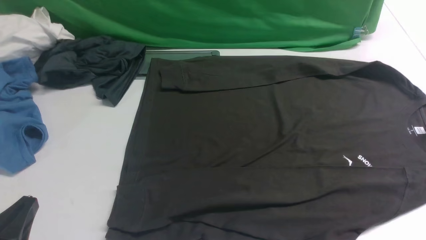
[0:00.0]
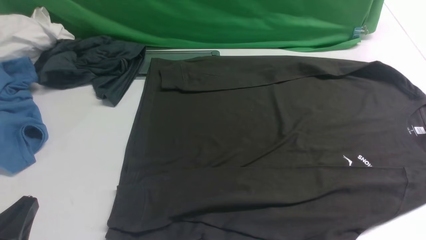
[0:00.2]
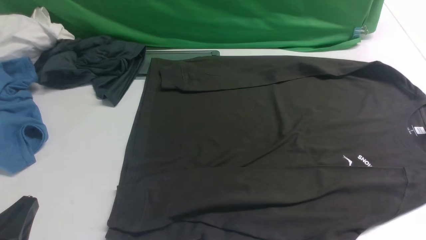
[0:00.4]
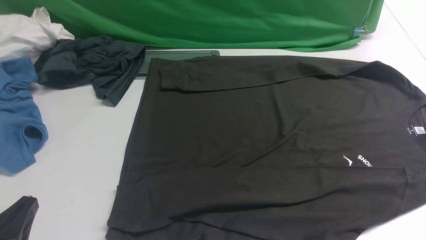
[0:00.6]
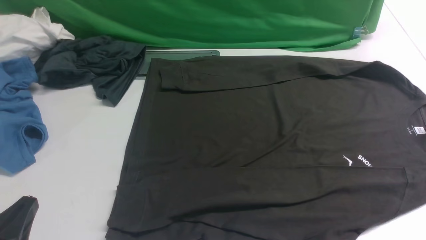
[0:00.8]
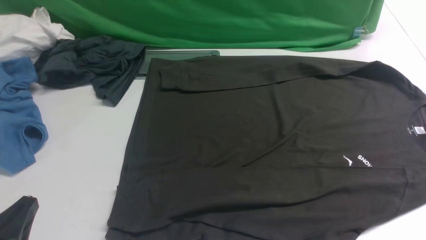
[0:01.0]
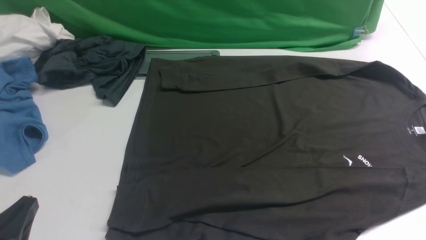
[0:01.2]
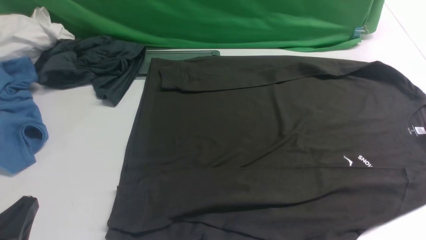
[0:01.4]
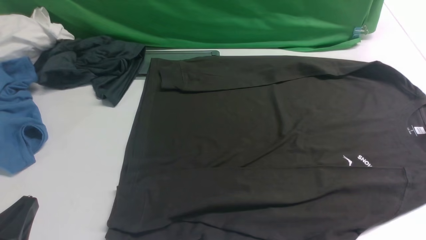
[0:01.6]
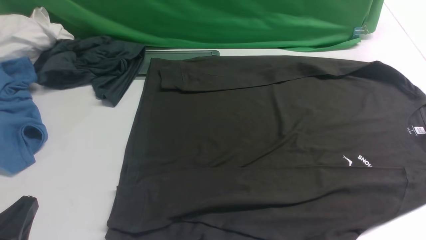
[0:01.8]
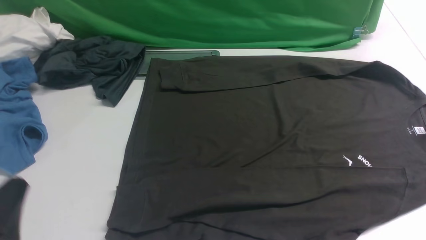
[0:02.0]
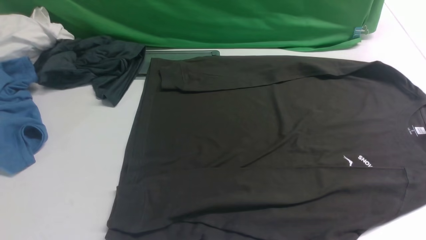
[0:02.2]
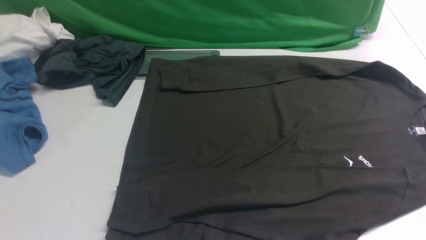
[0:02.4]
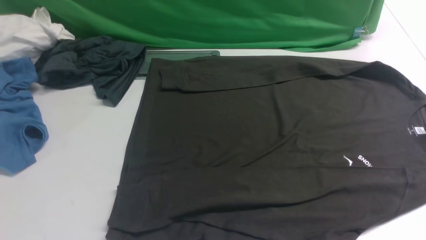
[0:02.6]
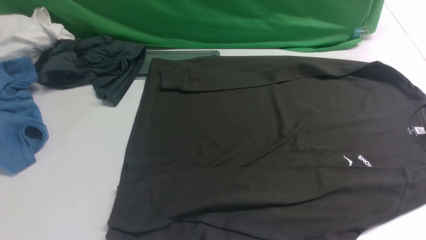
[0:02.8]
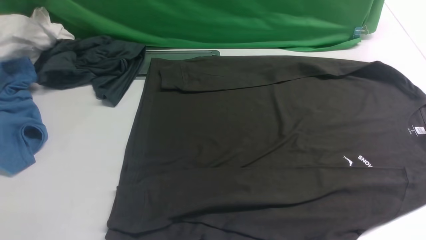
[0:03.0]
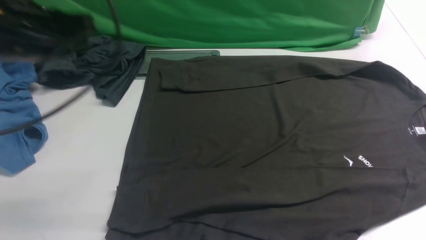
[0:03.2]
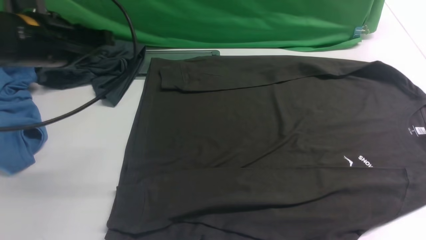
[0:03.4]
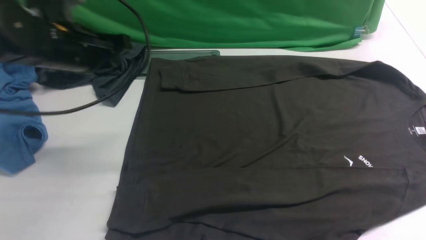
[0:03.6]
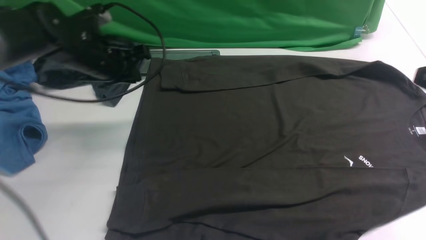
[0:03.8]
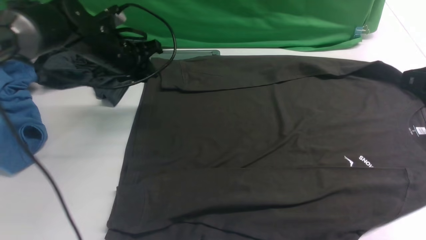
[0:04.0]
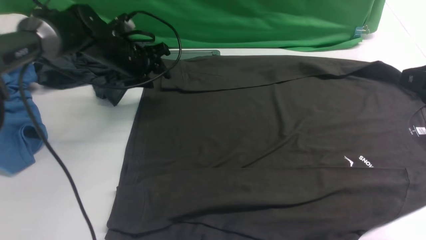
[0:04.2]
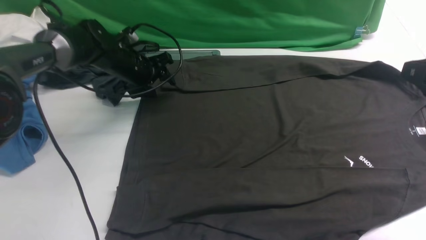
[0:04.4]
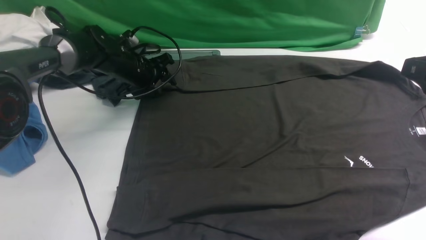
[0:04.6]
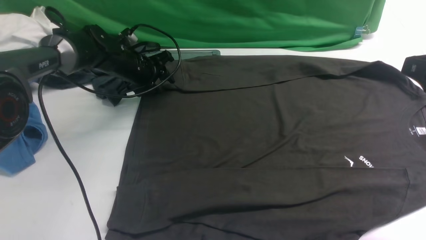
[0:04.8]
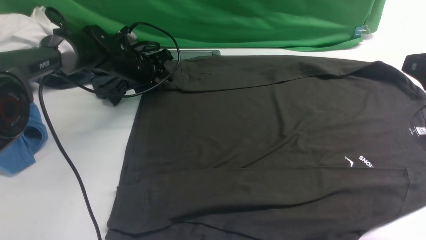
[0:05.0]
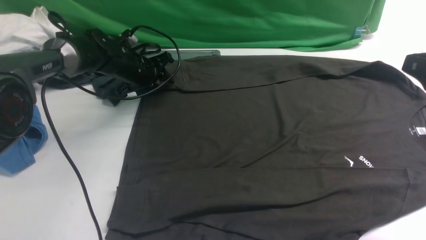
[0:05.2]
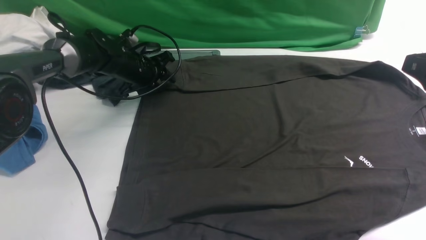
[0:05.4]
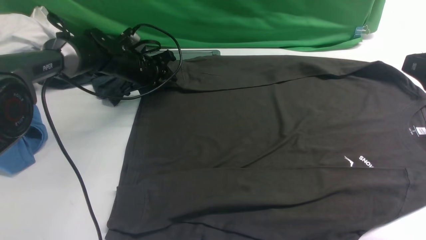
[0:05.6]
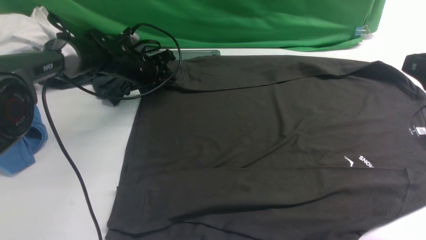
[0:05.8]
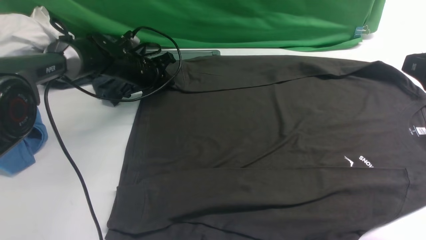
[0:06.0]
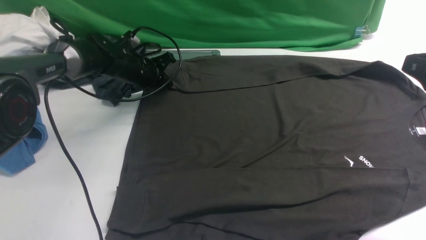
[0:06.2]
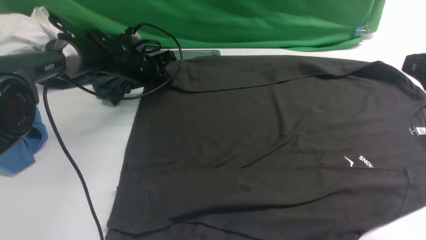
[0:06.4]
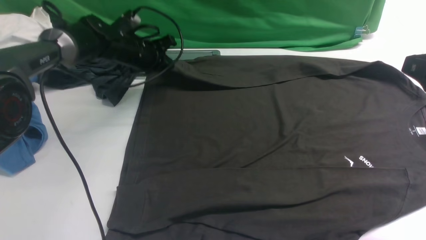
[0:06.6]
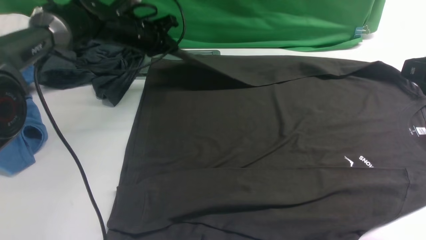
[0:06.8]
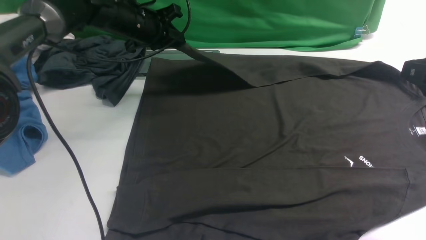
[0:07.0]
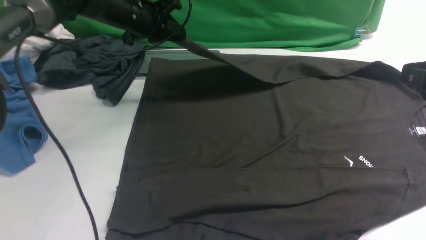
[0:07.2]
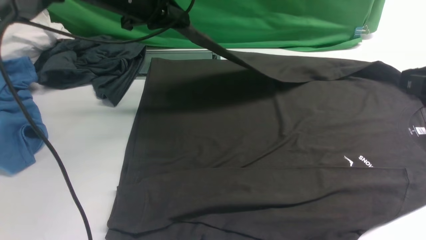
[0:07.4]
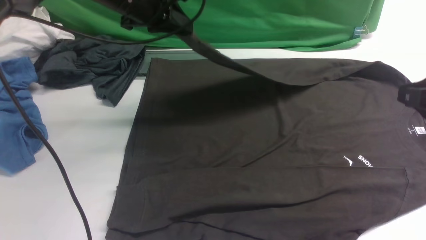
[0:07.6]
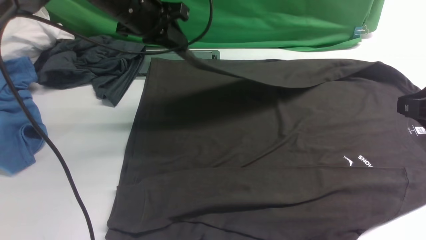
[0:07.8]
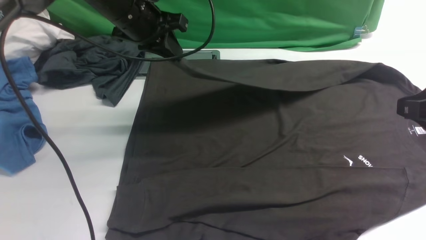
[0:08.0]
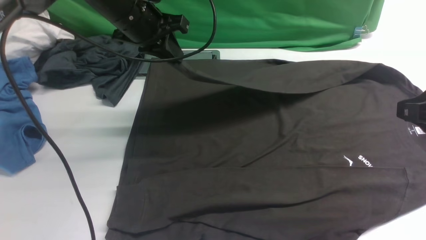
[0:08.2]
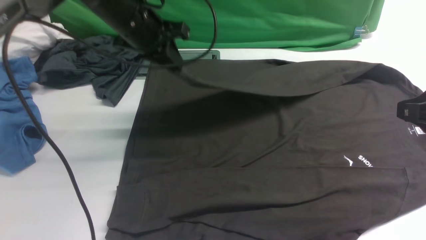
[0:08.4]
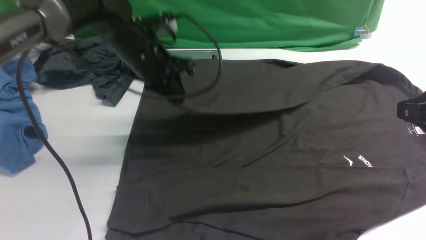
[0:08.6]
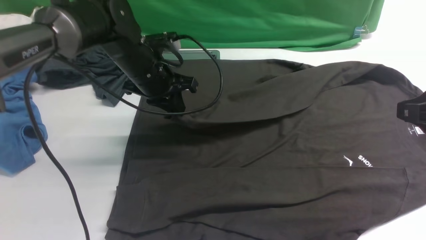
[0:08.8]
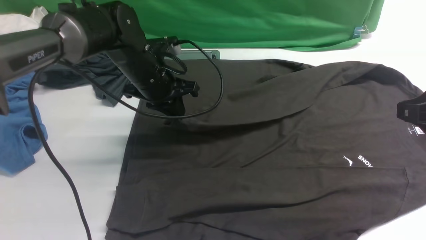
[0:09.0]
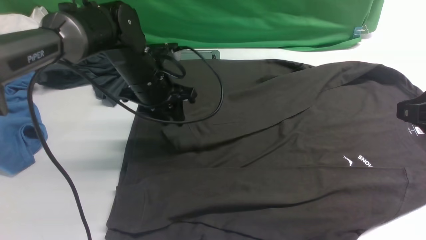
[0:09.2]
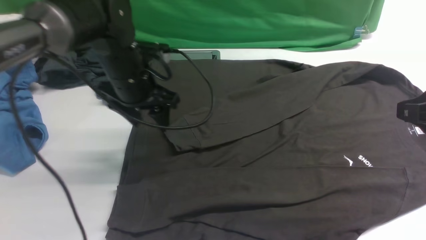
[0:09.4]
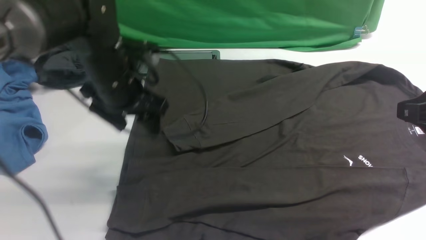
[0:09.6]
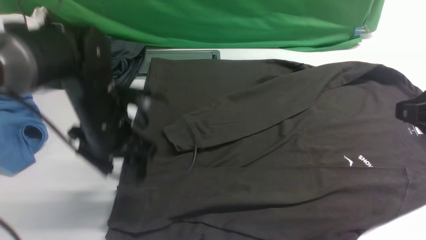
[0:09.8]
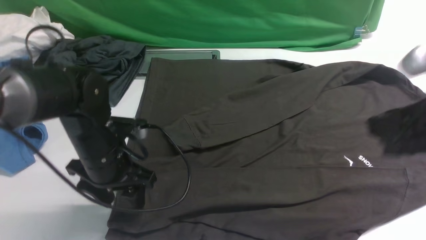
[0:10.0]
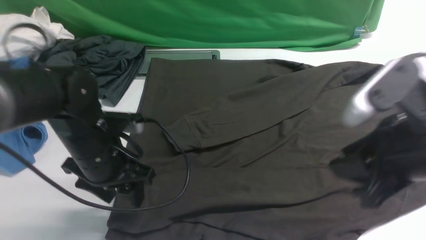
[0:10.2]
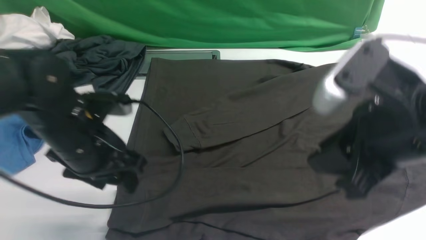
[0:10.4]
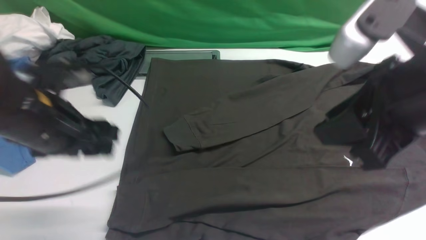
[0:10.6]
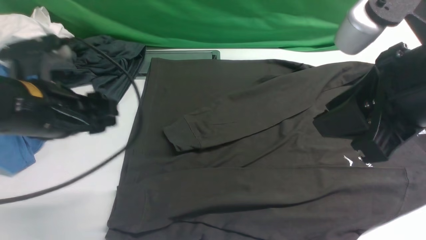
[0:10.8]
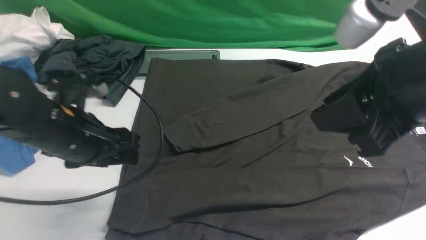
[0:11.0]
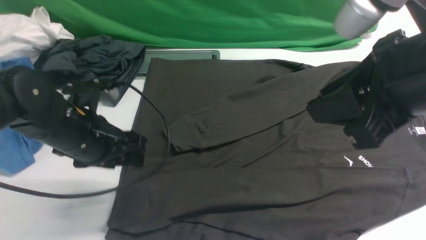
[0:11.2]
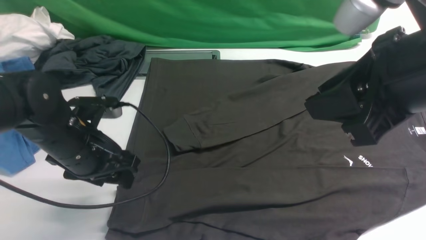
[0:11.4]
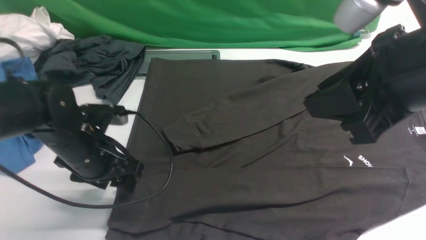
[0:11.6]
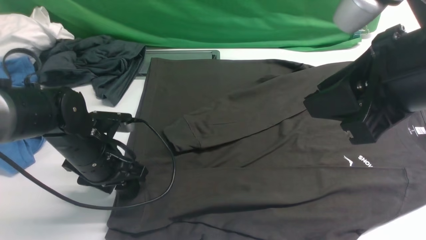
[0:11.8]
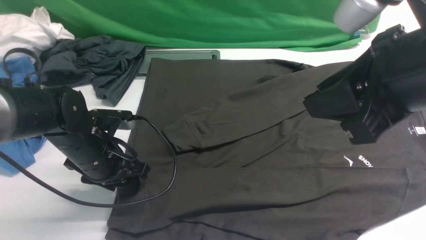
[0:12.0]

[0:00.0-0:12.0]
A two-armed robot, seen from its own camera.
Step, 0:00.0 to 0:06.6: use the left arm to clamp the cuff farthest from it.
Step, 0:06.8 to 0:09.6: use the left arm to drag and place the cuff at the centered position on the left edge of the fabric.
0:00.0 to 0:01.6: The two grippers keep their place.
0:01.6 to 0:03.0: The left gripper is displaced upward and forward by roughly 30 cm.
0:03.0 to 0:04.4: The left gripper goes some 35 cm forward and downward, and opens its fingers; the right gripper shifts approximately 15 cm downward and forward.
0:04.4 to 0:06.0: The left gripper closes.
0:06.0 to 0:07.6: The left gripper moves upward, about 15 cm.
0:07.6 to 0:09.0: The left gripper moves downward, about 10 cm.
0:09.0 to 0:10.4: The right gripper shifts some 10 cm to the left. The left gripper travels backward by about 15 cm, and opens.
0:10.4 to 0:12.0: The left gripper heads downward, covering about 10 cm.

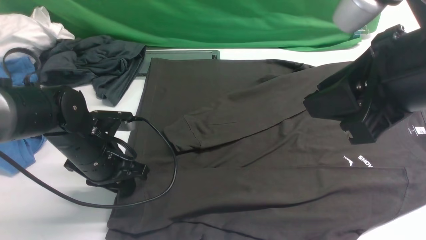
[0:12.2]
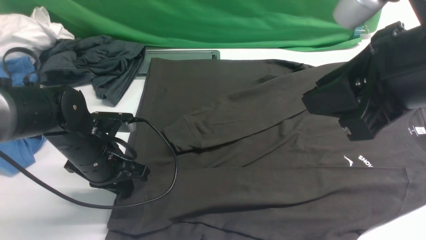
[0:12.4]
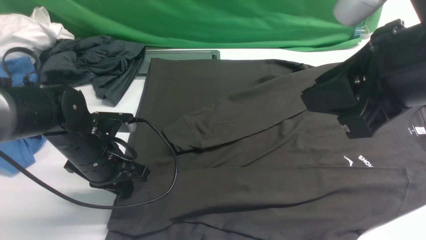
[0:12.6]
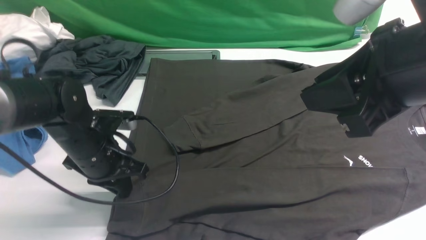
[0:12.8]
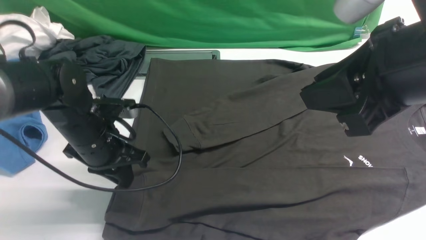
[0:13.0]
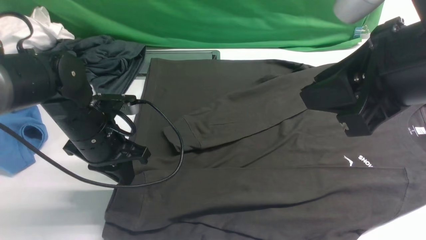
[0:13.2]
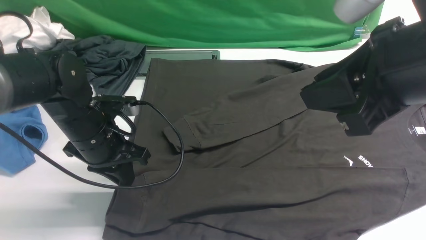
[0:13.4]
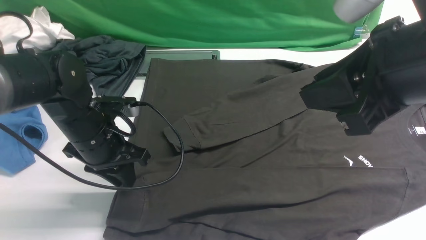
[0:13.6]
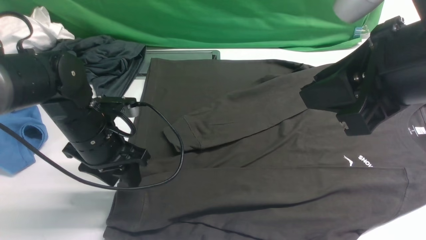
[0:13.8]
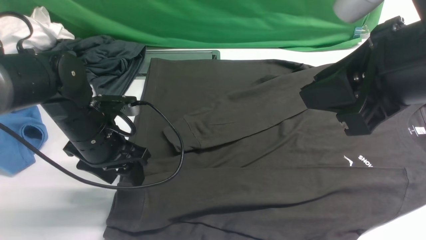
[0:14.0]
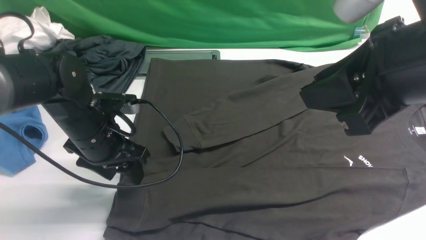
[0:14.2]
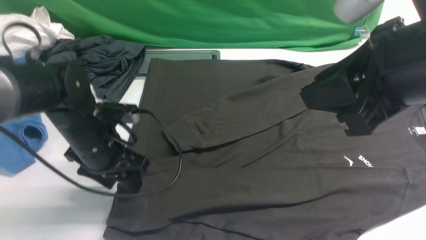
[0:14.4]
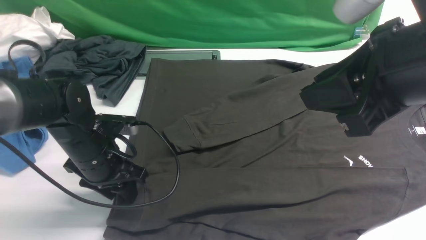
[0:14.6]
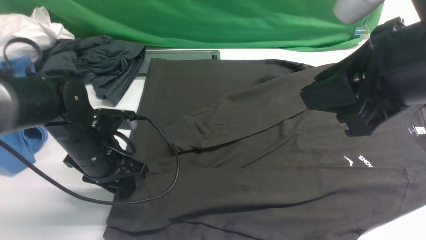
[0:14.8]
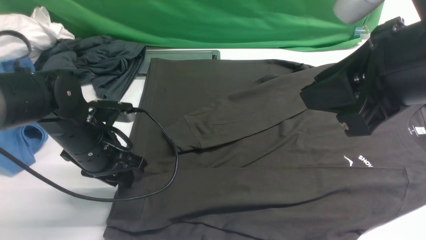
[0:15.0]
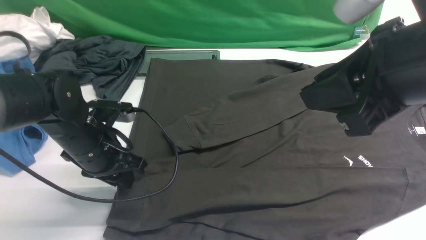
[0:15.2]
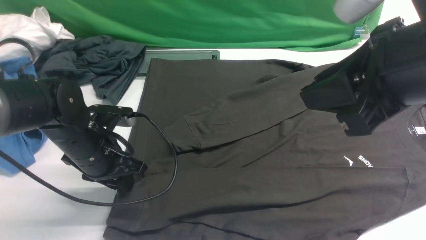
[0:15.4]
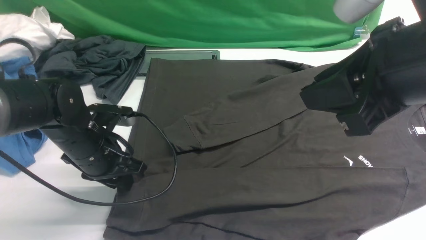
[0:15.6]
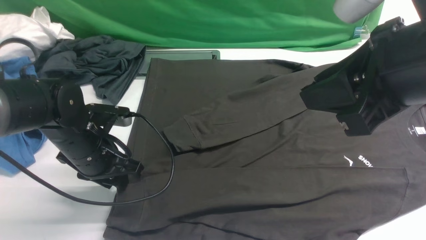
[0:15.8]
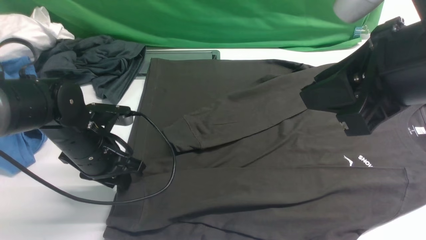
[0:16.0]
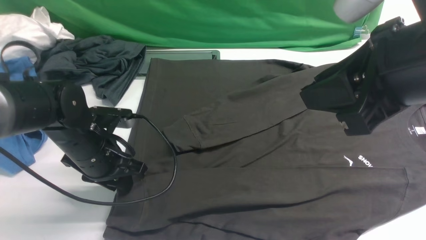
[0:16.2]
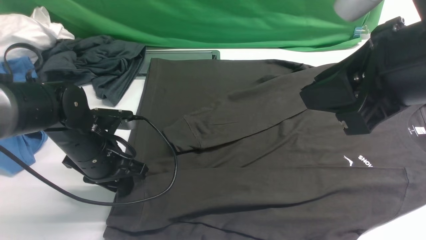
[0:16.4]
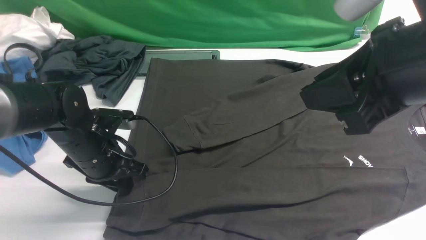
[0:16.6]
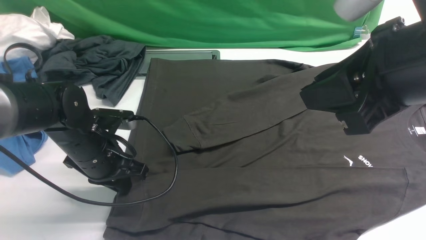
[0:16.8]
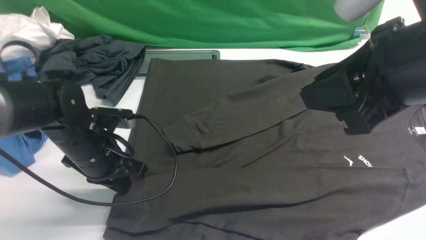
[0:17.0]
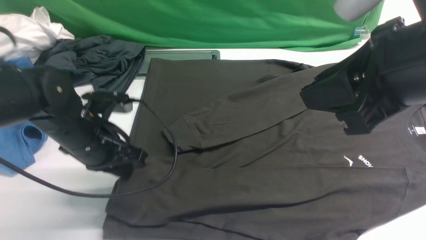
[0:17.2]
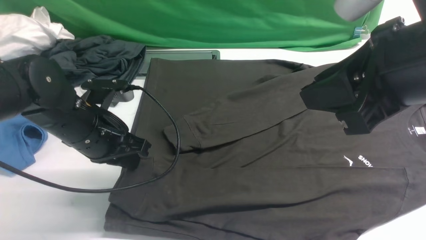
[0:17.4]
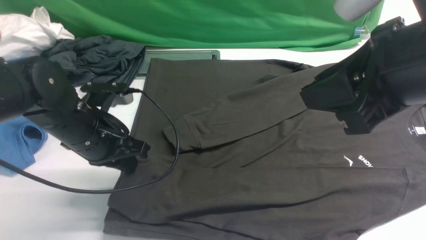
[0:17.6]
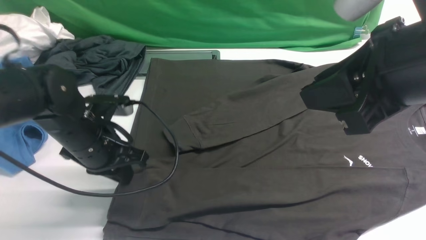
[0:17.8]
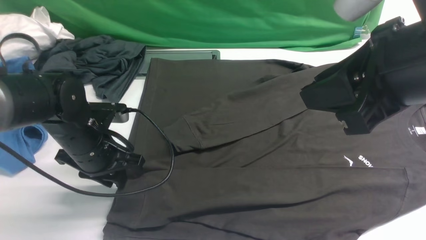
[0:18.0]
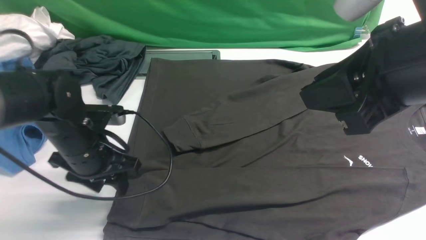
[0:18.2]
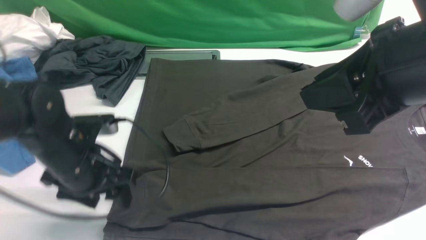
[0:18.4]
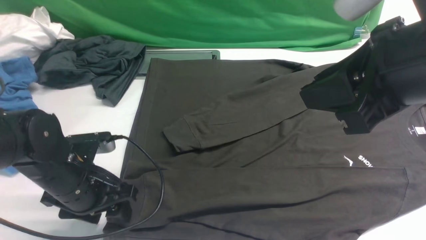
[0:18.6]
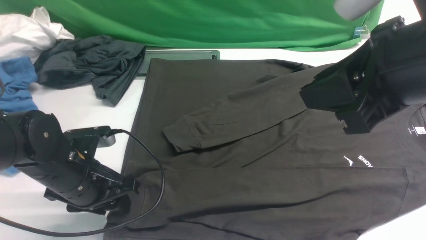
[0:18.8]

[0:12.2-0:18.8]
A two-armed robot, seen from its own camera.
0:12.2 to 0:17.2: There are only small adjustments of the grippers.
0:17.2 to 0:18.8: The left gripper shifts some 5 cm backward, and opens its fingers.
